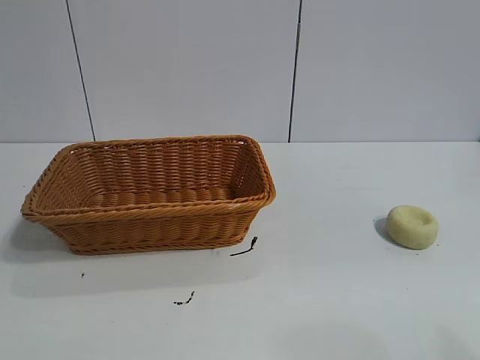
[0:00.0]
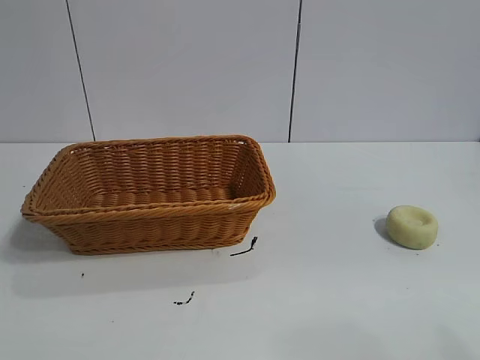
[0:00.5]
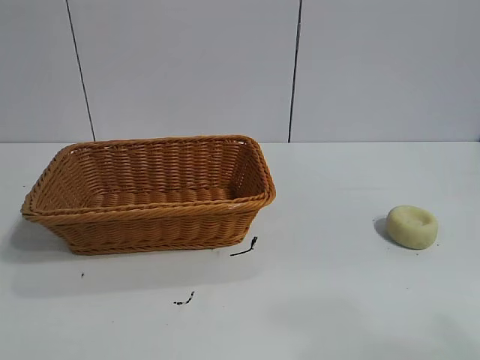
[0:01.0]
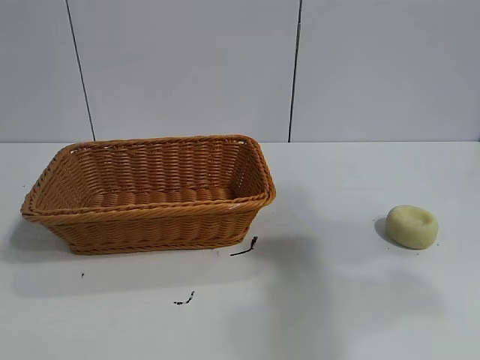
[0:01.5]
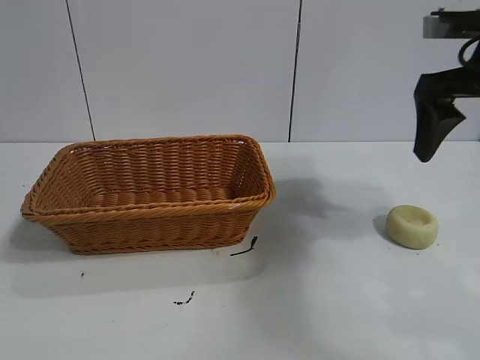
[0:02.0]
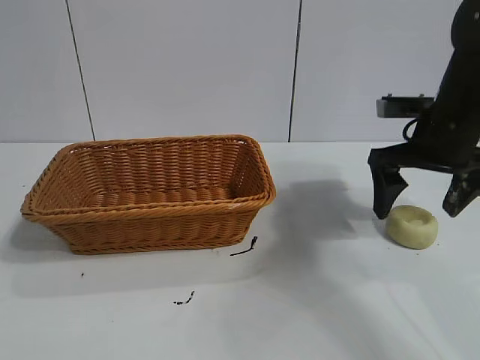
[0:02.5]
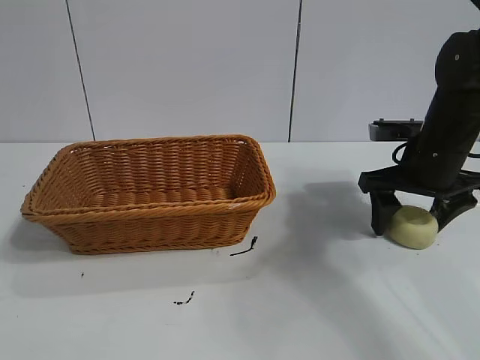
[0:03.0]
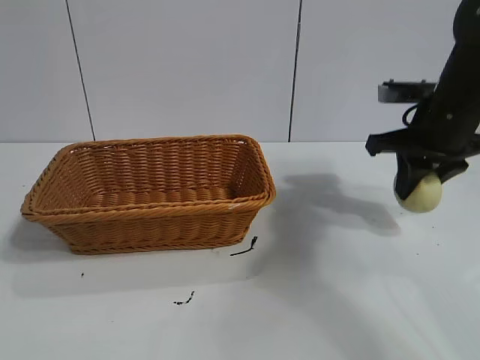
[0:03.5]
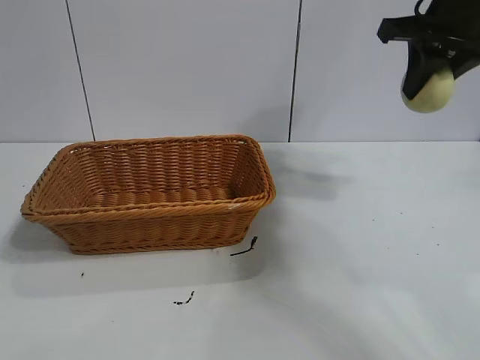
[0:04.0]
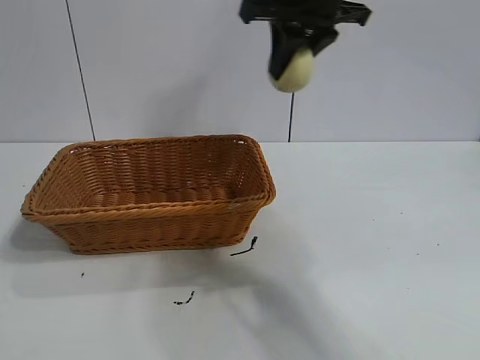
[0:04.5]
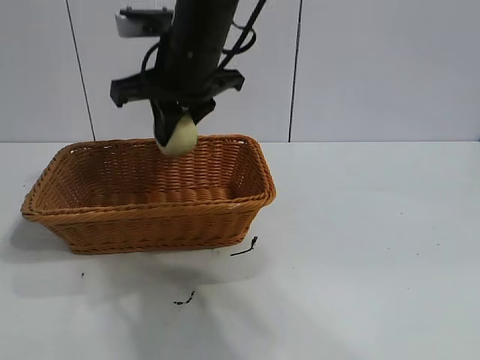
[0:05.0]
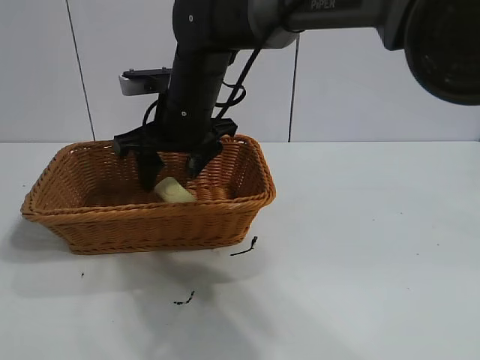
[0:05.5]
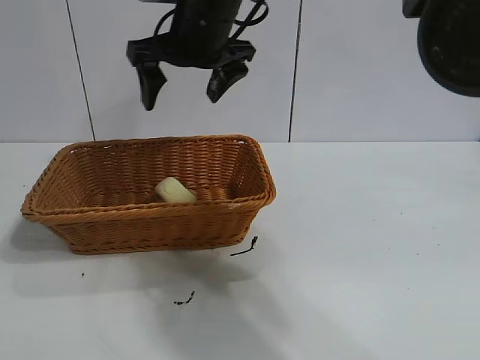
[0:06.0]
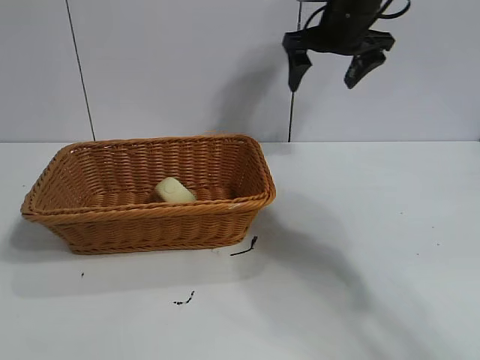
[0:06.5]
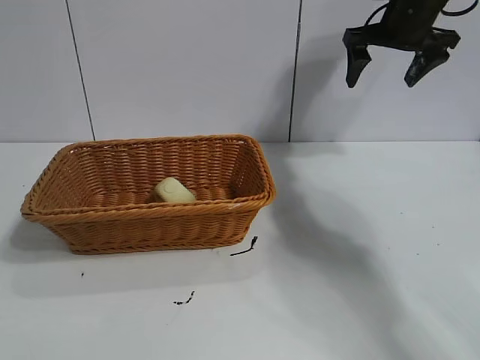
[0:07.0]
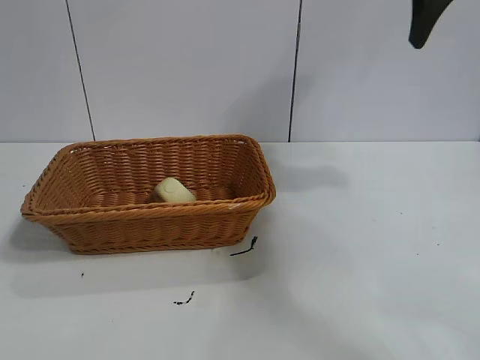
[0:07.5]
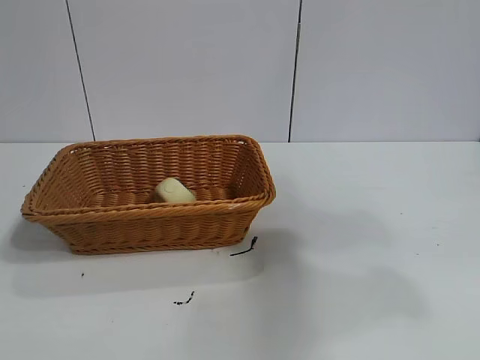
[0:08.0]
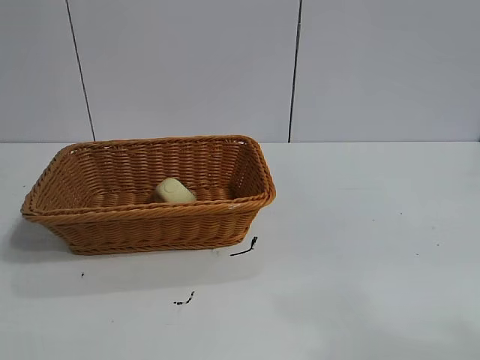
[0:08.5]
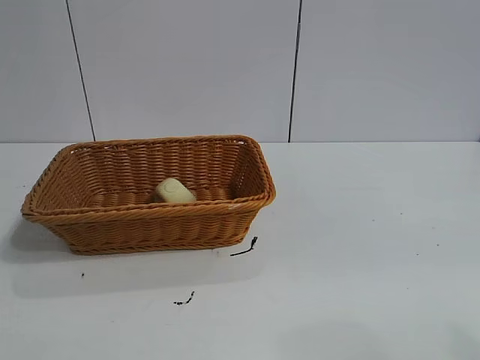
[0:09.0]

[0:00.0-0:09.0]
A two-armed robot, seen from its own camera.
Task of the whole recording: pick up the egg yolk pastry and put it into the basket.
Step, 0:01.0 to 0:03.0: Grasp egg yolk pastry with right gripper.
Step, 0:03.5 to 0:05.5: Place the egg yolk pastry in the basket with right gripper.
